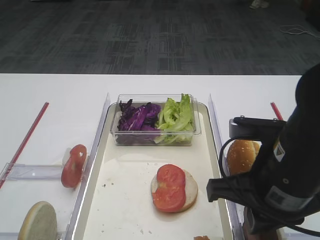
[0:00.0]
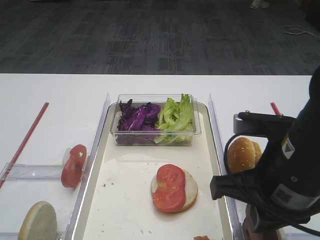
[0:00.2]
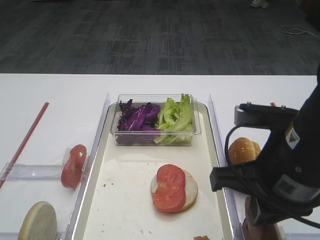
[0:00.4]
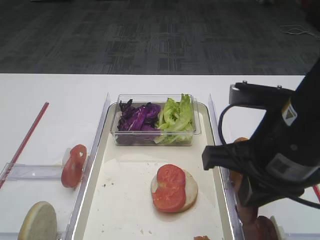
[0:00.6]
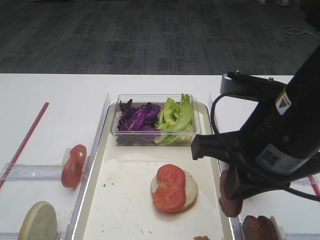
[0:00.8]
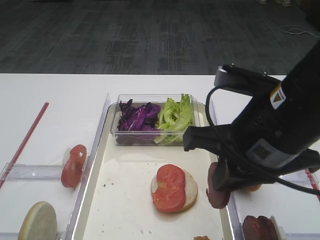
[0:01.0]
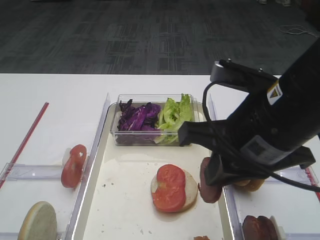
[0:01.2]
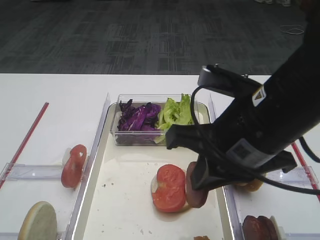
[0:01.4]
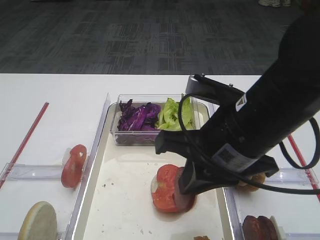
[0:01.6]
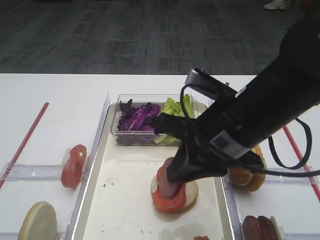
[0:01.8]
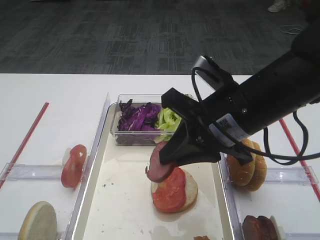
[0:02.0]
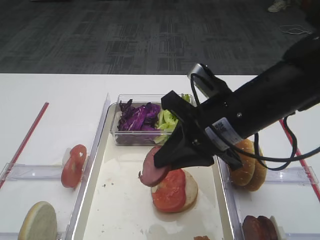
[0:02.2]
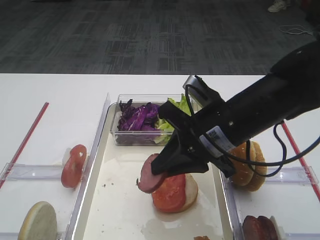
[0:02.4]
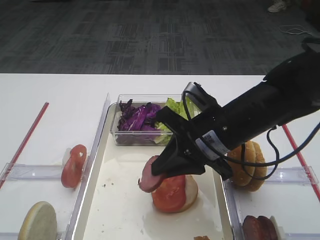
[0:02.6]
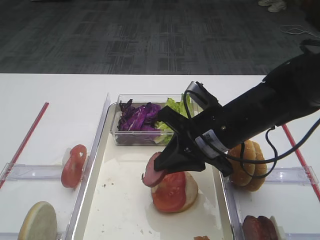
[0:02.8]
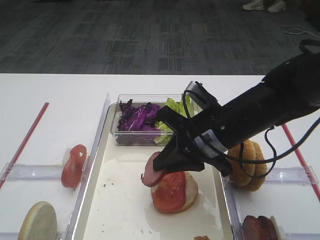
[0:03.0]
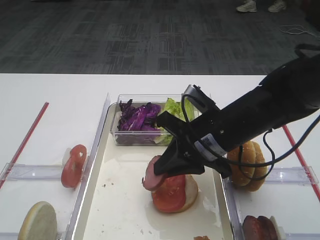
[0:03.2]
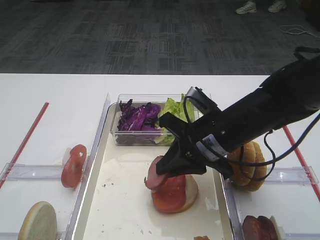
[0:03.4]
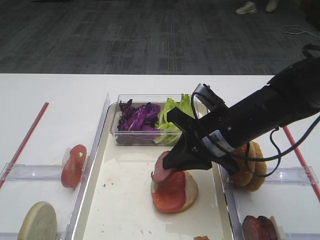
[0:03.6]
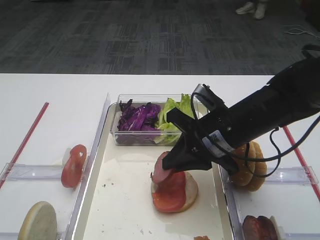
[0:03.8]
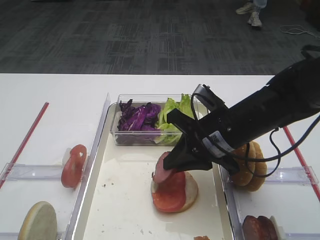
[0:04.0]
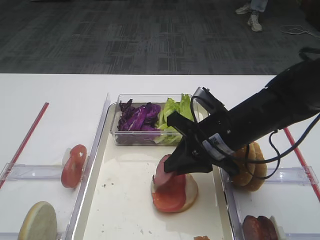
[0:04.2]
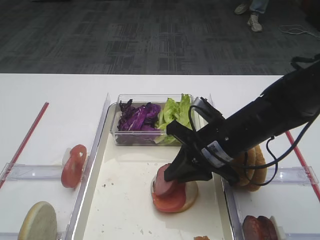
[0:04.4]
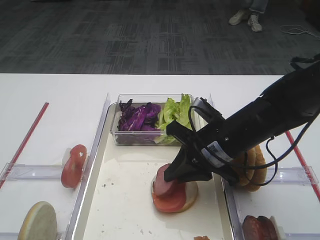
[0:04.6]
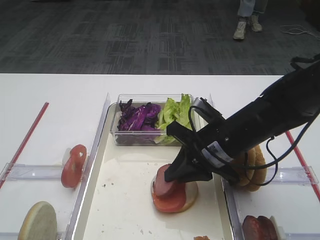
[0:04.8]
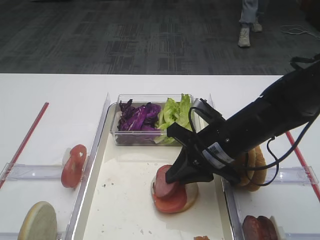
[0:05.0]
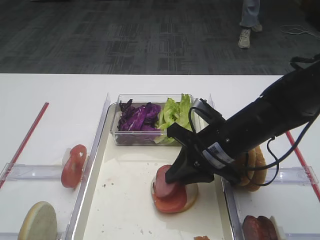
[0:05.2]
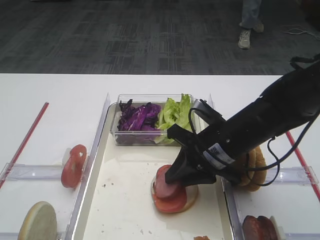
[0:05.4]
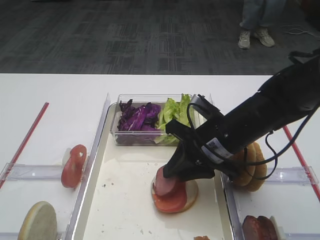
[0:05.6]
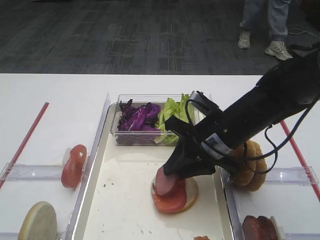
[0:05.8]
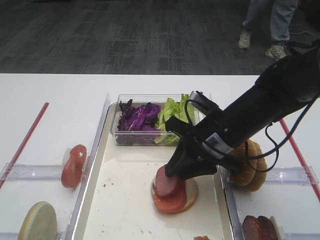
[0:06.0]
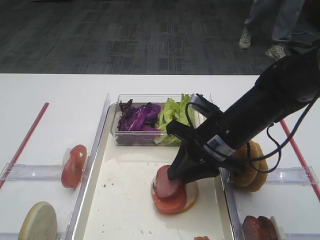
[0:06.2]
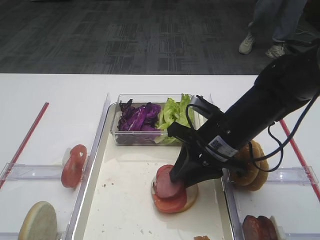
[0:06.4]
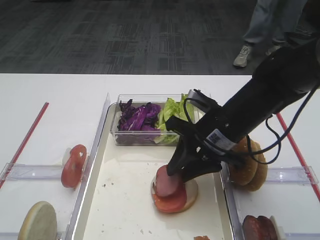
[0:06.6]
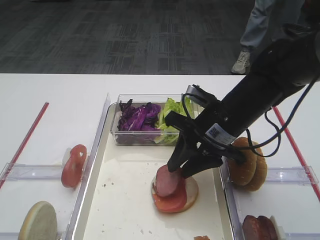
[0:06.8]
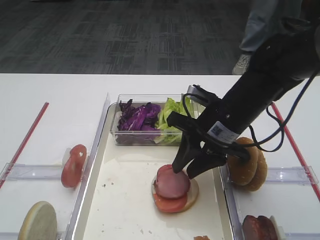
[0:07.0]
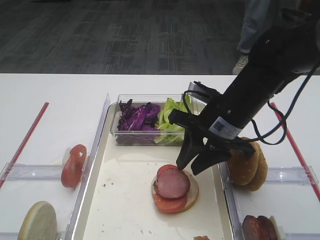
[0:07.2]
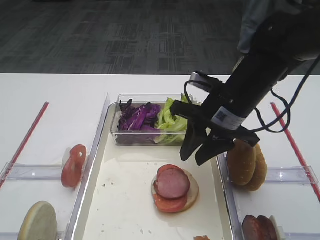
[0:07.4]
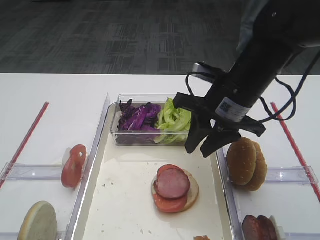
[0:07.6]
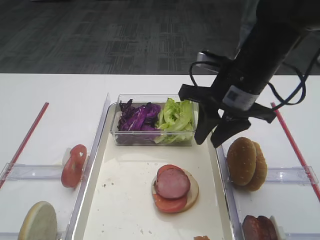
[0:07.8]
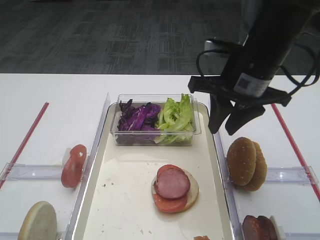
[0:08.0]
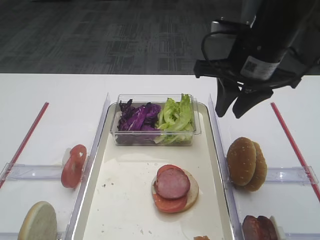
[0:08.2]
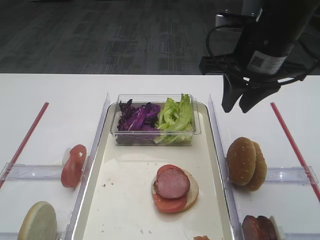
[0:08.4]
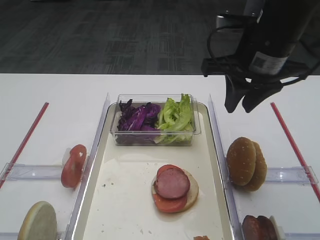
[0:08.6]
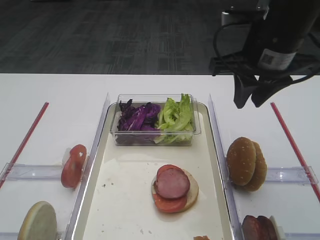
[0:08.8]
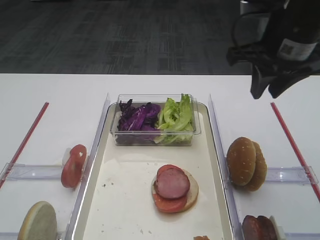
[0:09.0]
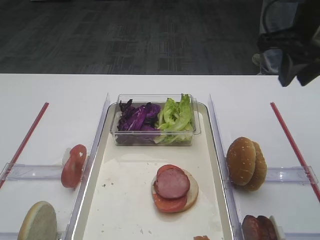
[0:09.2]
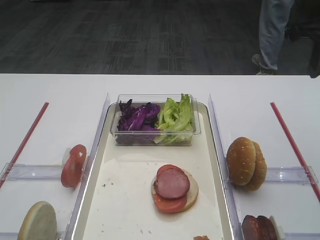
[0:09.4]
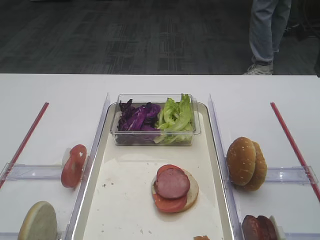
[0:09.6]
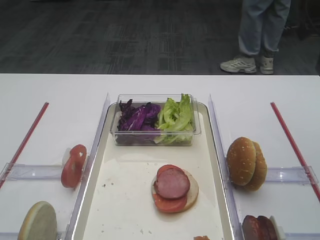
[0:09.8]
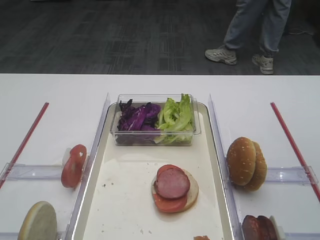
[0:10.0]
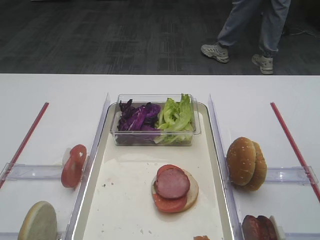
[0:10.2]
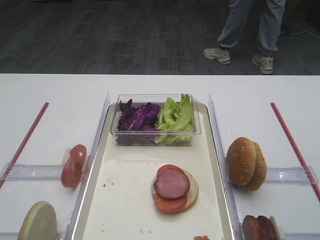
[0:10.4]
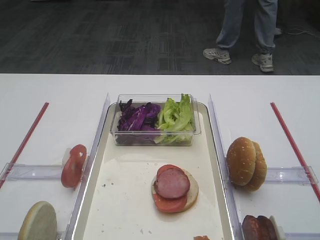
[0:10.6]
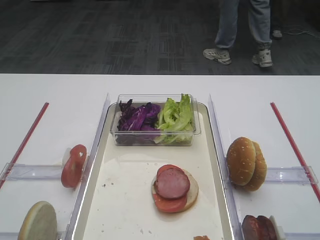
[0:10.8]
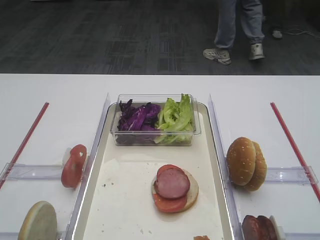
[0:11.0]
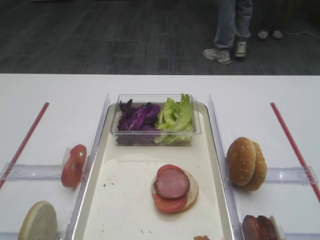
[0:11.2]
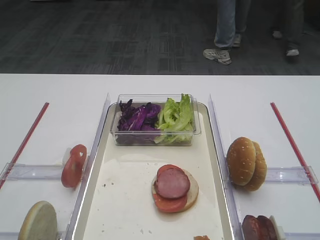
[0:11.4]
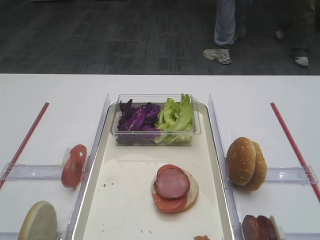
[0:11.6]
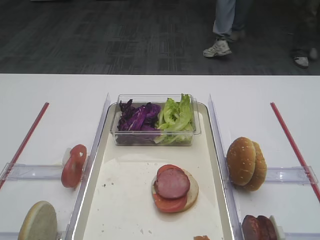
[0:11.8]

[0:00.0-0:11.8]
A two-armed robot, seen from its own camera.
Step, 0.8 to 7.2 s: Place the cutlet on the tomato slice with the right gripper.
0.0 to 1.4 s: The right gripper travels upward by roughly 5 cm.
1.4 to 3.0 s: The right gripper shifts roughly 10 cm forward and downward.
3.0 to 6.0 s: The grippers stay close to where they were, moving slightly.
6.0 to 7.4 s: The grippers stay close to where they were, moving slightly.
7.4 to 8.8 s: The right gripper heads upward, covering roughly 10 cm.
8.8 to 10.4 s: The right gripper is displaced backward and to the right by about 15 cm.
10.4 to 11.8 s: The right gripper travels backward by about 20 cm.

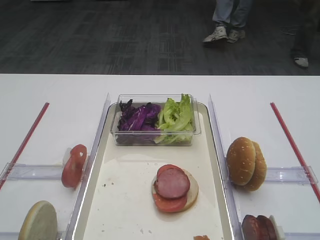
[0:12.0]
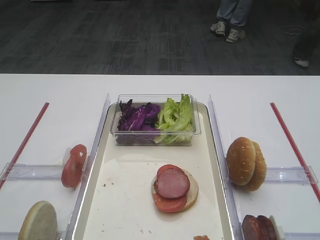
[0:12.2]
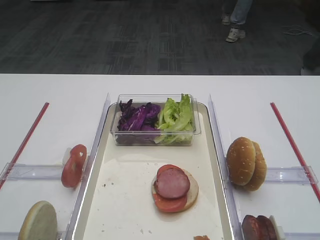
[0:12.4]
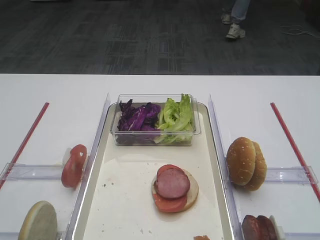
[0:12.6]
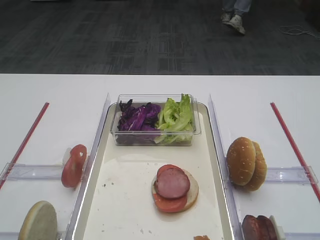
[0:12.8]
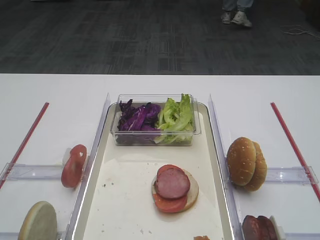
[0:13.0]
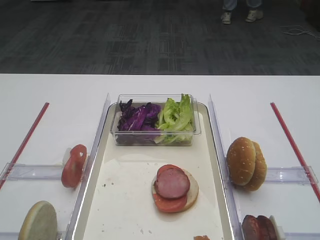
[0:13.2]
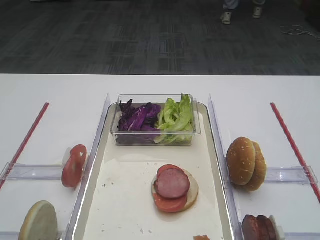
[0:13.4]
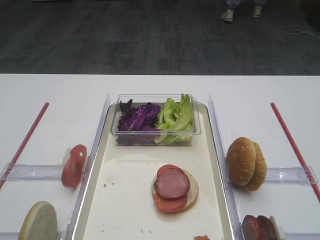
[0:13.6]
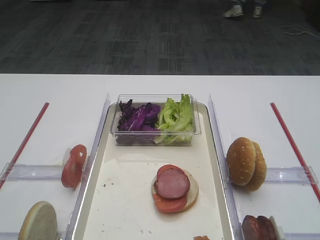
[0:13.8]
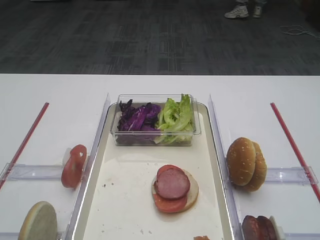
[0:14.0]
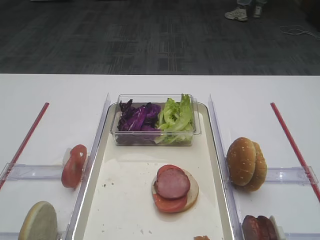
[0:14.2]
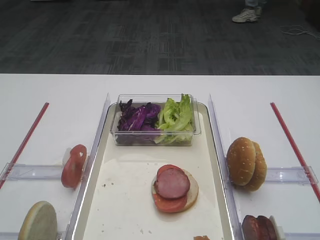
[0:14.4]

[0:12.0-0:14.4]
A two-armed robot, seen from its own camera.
12.0 to 13.2 s: The grippers stay close to where they were, moving slightly.
13.2 to 14.4 s: Both grippers stay about where they are.

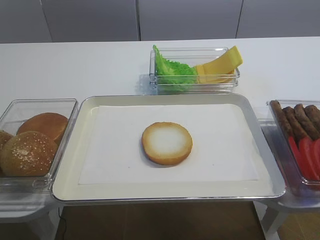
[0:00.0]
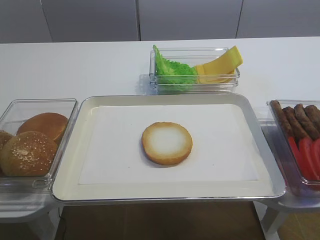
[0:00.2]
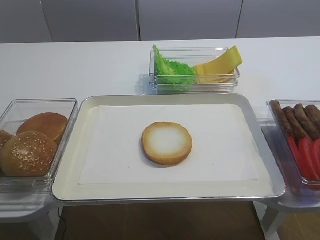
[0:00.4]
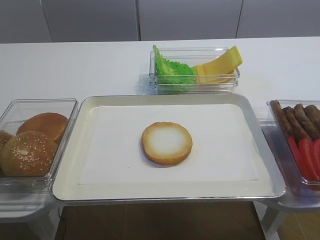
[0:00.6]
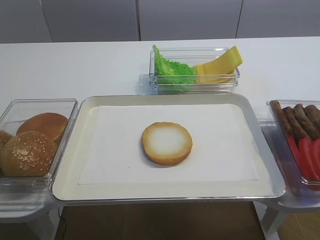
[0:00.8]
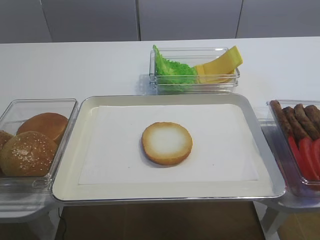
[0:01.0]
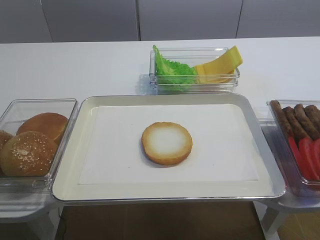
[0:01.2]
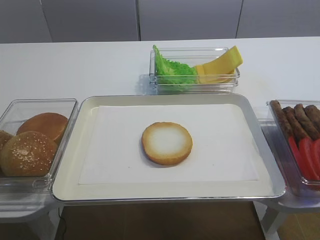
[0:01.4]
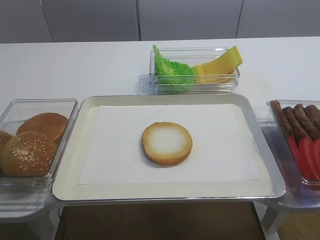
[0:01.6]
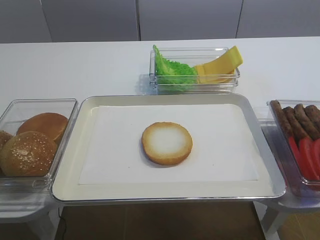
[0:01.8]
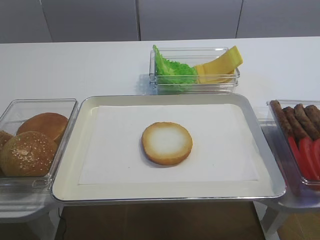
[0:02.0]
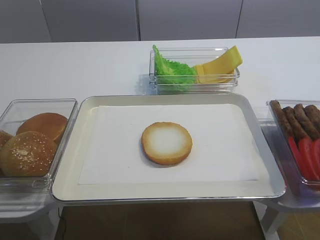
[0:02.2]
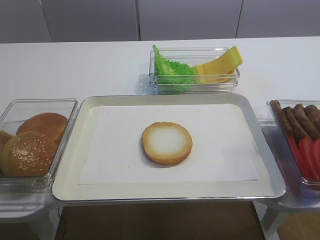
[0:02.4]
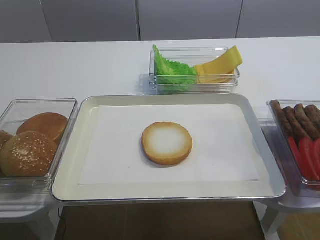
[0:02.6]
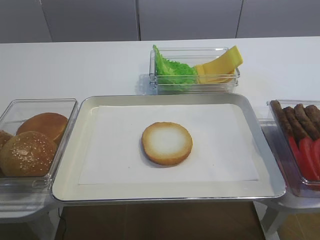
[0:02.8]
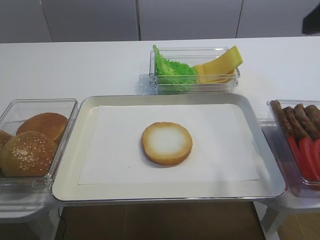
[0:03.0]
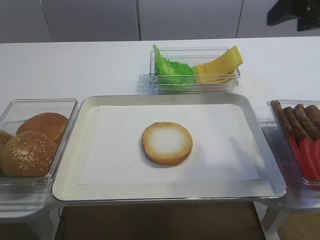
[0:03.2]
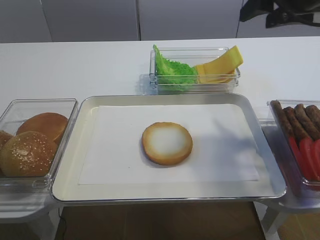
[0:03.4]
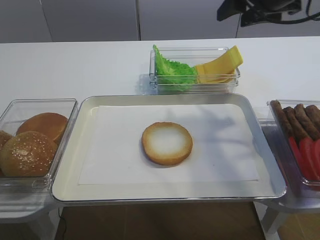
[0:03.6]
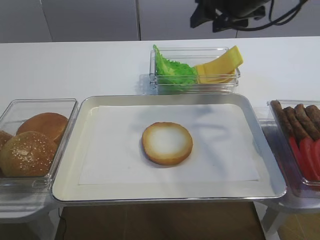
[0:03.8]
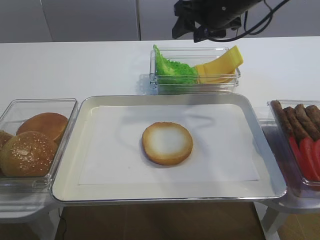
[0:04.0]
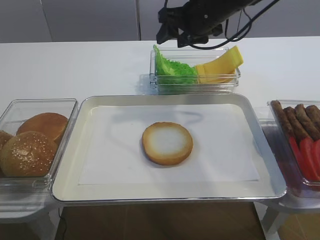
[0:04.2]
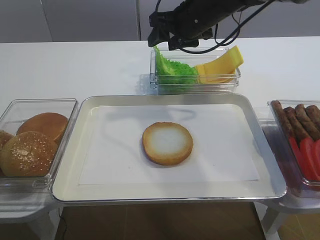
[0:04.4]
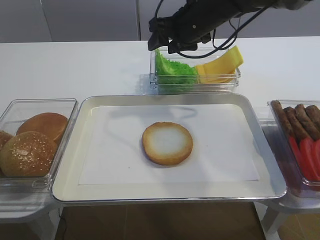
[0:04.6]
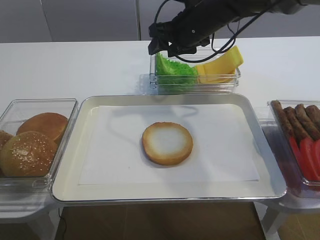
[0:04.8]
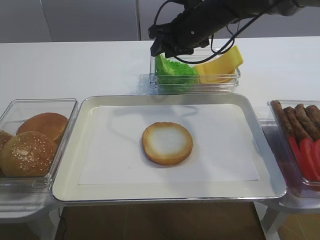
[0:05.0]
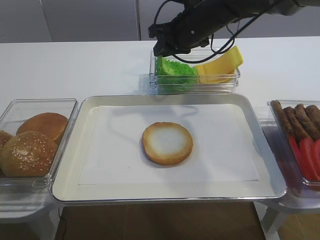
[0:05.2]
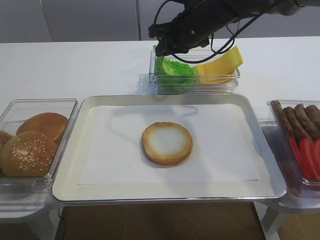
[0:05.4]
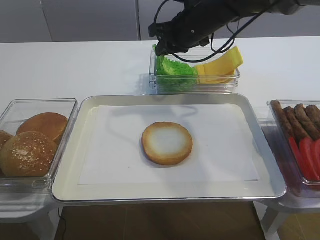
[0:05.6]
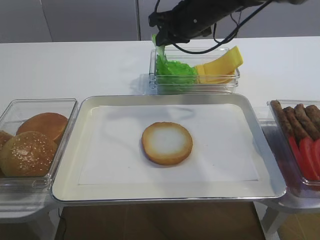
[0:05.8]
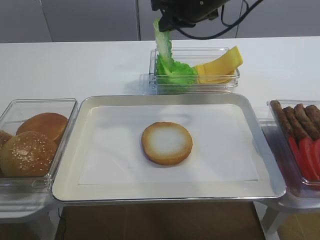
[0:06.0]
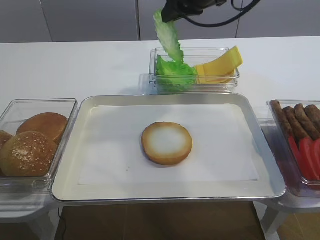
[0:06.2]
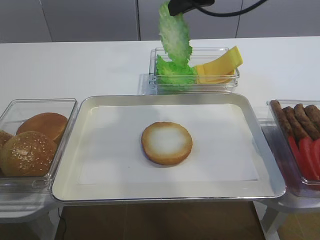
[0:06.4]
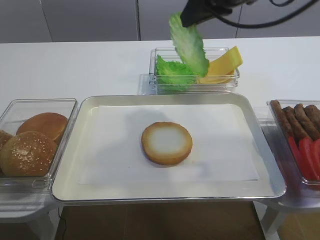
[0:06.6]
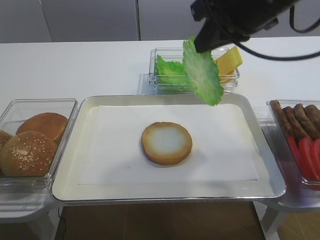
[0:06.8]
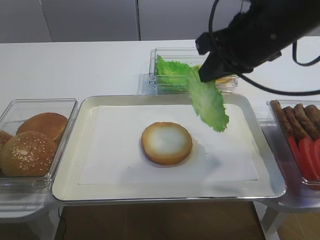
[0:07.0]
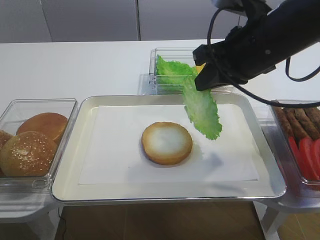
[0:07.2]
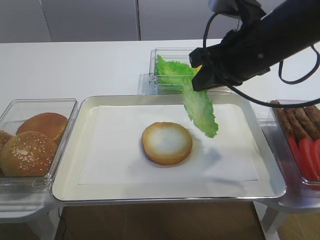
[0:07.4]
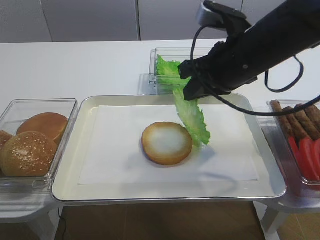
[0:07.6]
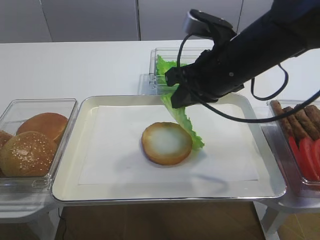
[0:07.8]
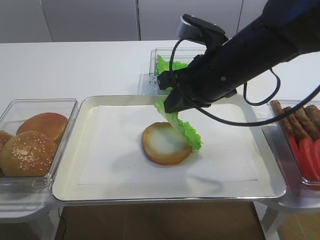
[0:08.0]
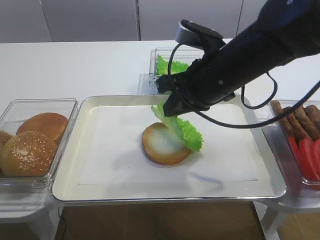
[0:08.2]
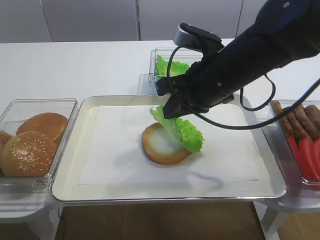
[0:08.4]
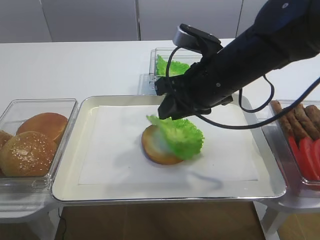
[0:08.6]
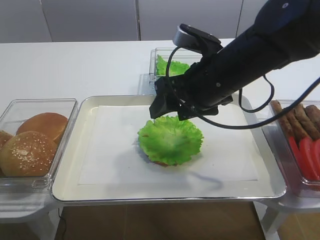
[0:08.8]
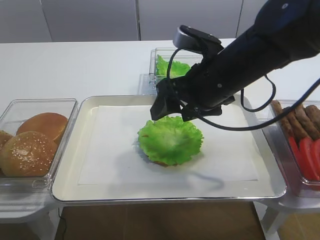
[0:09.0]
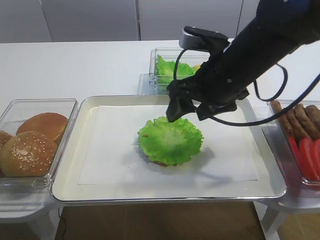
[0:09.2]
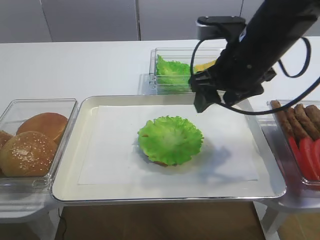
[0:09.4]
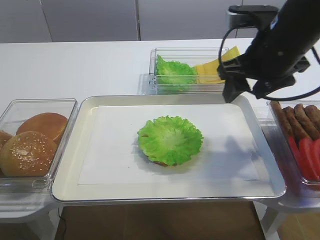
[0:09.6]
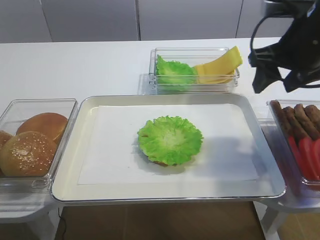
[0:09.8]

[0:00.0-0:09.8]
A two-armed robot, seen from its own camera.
Step, 0.0 to 5.8 s: Pick up the lettuce leaf with the right gripper.
Step, 6.2 to 8.8 s: Place the lettuce leaf on the bread slice with the right gripper.
1.4 to 2.8 s: The right gripper travels forward and upward by approximately 15 cm.
2.8 to 4.2 s: The right gripper shifts roughly 35 cm forward and to the left.
4.2 to 5.6 s: The right gripper shifts by roughly 5 cm, and closes up.
5.6 to 7.0 s: The right gripper is displaced backward and upward by approximately 20 cm.
7.0 to 8.4 s: The right gripper travels downward by about 10 cm.
8.4 to 9.8 s: The right gripper shifts approximately 10 cm to the right, and opens.
